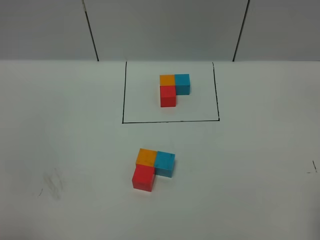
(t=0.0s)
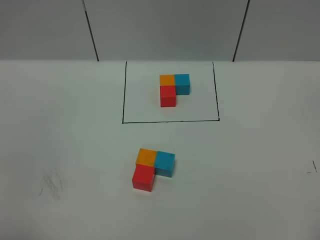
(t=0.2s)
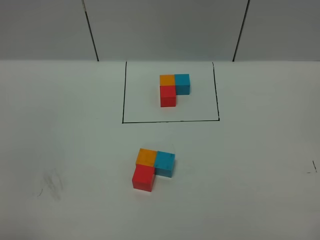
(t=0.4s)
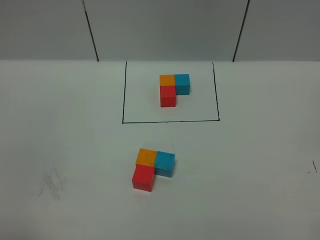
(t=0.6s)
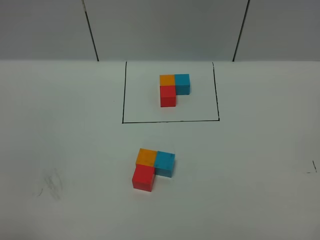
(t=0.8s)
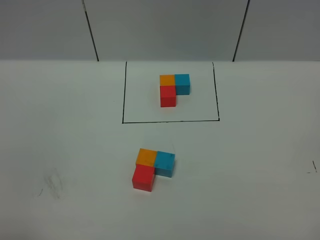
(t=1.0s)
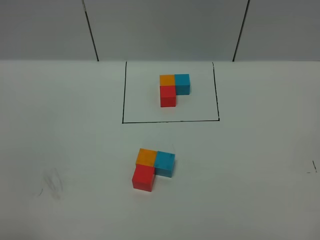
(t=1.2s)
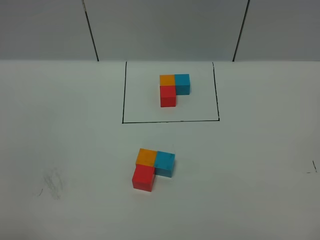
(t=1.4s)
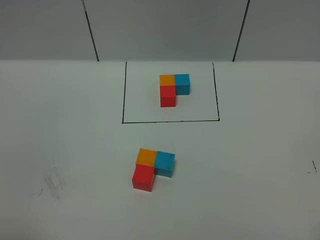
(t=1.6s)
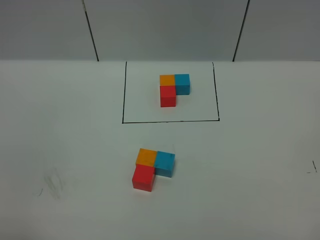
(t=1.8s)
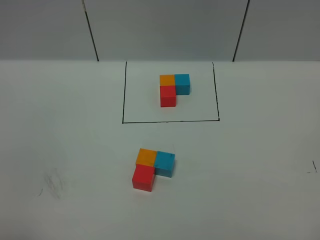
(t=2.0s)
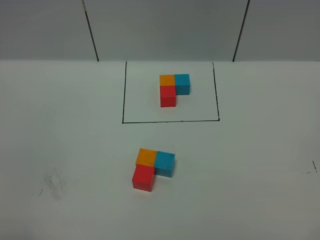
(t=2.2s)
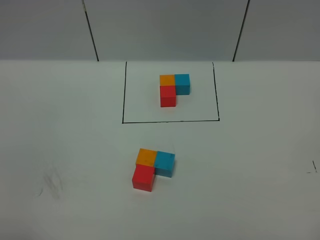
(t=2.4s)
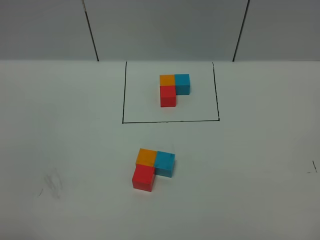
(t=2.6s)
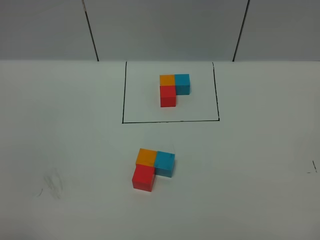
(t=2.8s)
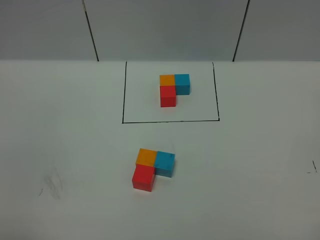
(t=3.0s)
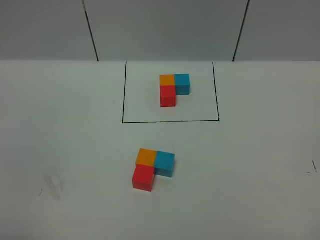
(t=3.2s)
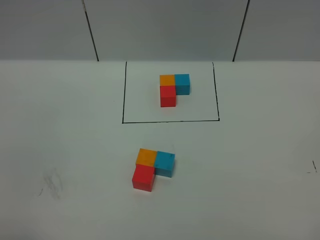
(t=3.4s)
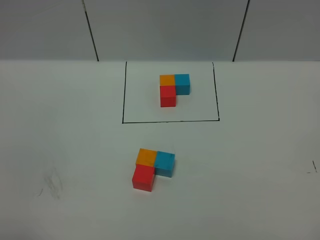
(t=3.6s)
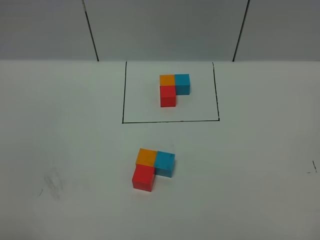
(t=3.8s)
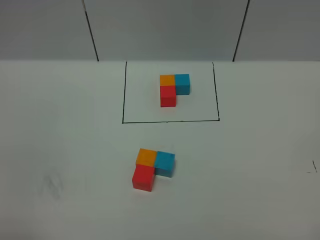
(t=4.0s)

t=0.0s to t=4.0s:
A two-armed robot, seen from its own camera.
Task of the whole recording: According to the building block template in front, assemble the scattered blocks together.
t=1.4s to t=4.0s: Both grippers stay about where they are.
